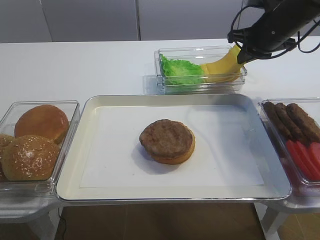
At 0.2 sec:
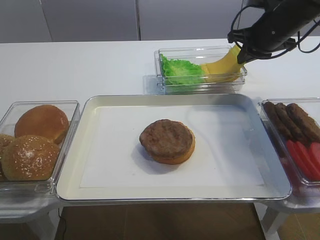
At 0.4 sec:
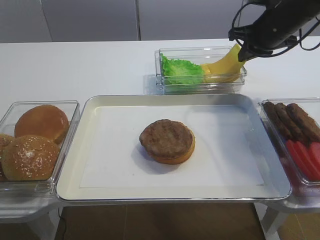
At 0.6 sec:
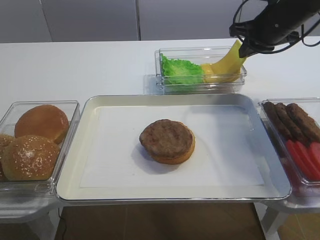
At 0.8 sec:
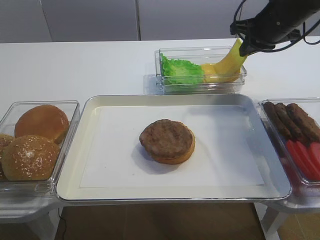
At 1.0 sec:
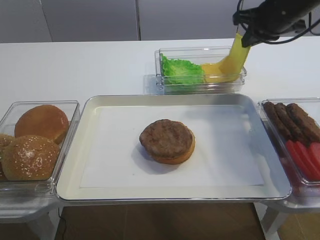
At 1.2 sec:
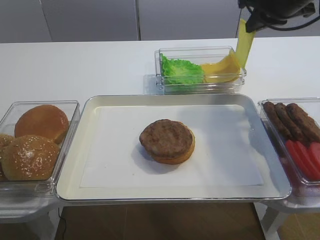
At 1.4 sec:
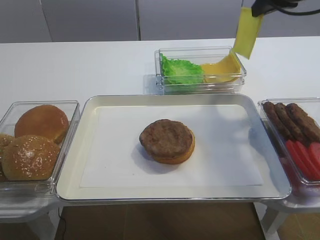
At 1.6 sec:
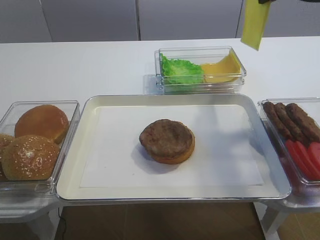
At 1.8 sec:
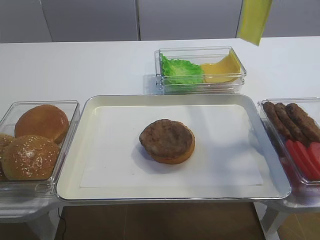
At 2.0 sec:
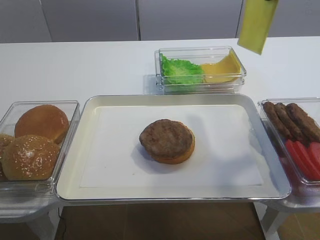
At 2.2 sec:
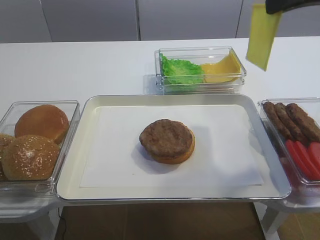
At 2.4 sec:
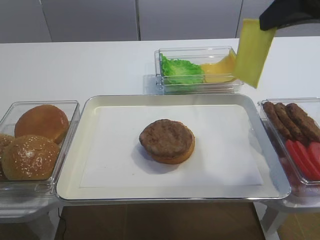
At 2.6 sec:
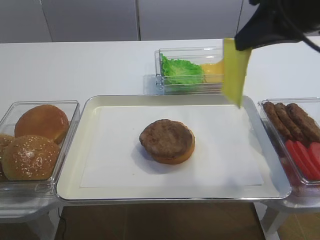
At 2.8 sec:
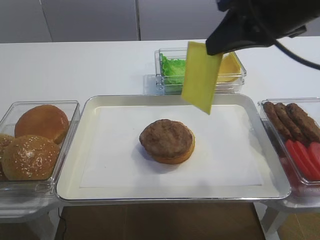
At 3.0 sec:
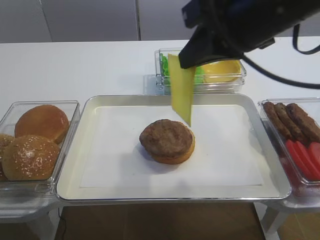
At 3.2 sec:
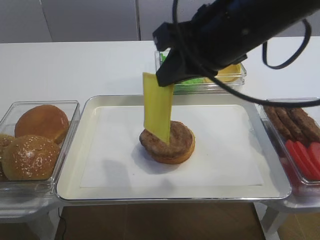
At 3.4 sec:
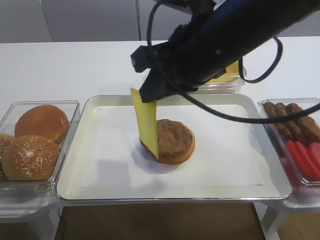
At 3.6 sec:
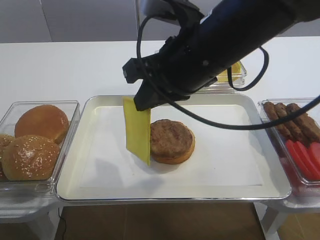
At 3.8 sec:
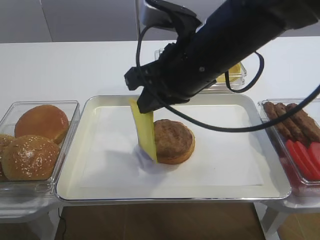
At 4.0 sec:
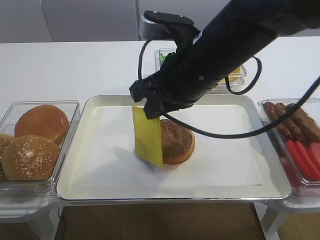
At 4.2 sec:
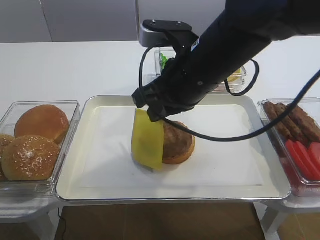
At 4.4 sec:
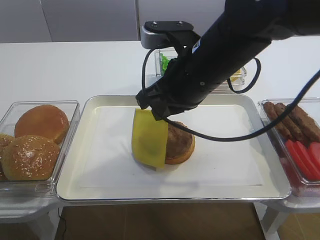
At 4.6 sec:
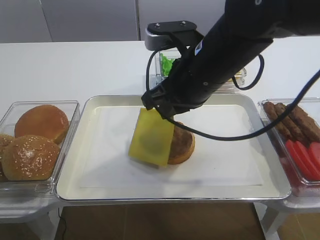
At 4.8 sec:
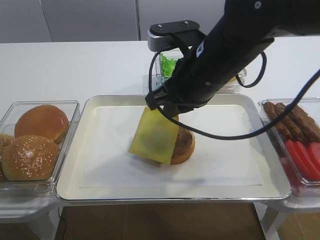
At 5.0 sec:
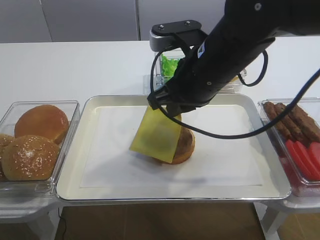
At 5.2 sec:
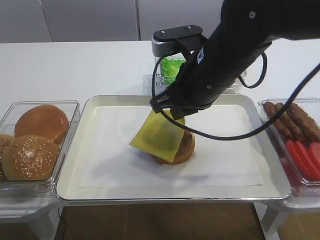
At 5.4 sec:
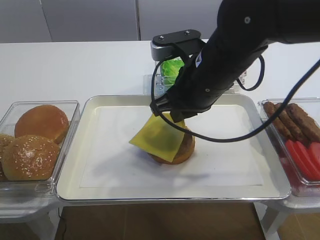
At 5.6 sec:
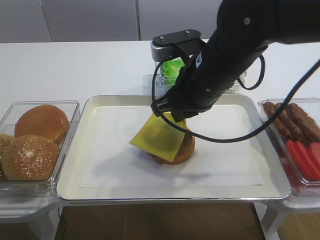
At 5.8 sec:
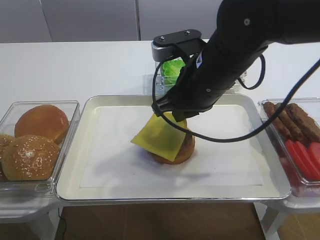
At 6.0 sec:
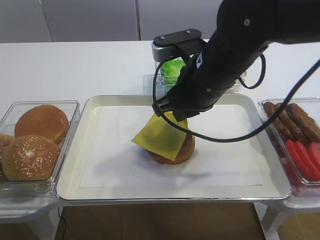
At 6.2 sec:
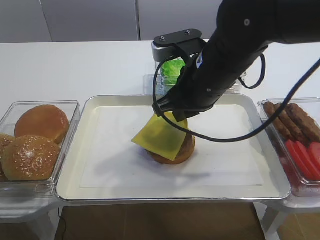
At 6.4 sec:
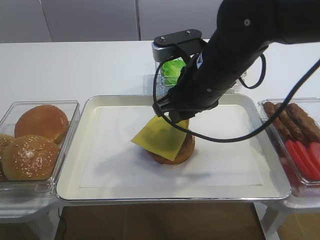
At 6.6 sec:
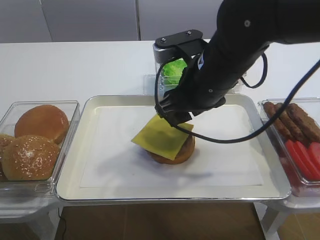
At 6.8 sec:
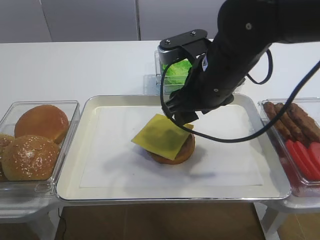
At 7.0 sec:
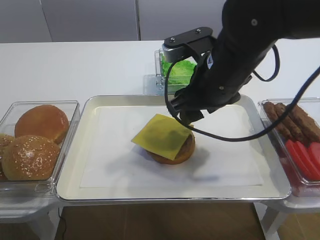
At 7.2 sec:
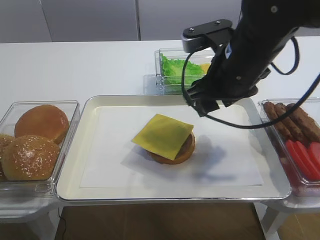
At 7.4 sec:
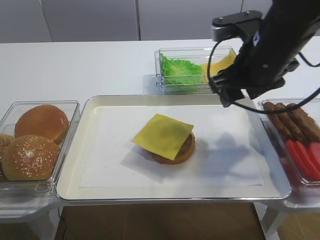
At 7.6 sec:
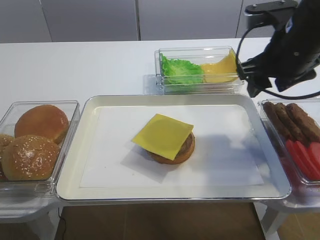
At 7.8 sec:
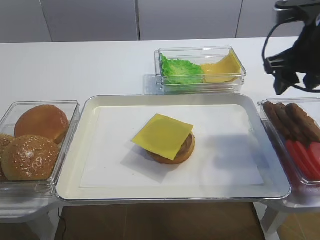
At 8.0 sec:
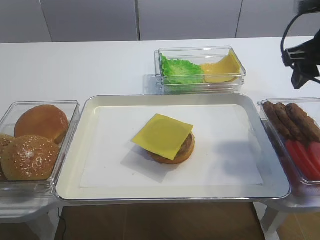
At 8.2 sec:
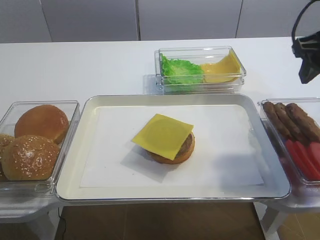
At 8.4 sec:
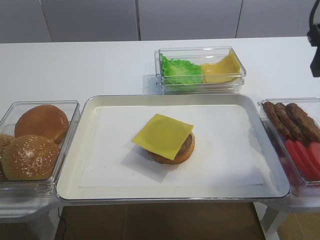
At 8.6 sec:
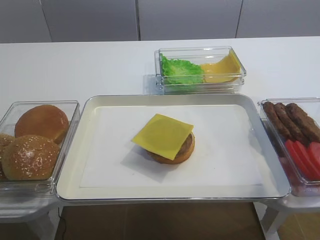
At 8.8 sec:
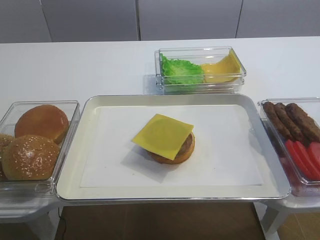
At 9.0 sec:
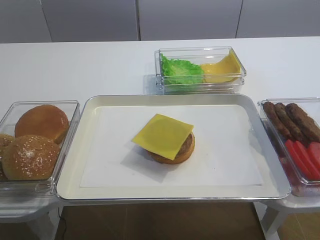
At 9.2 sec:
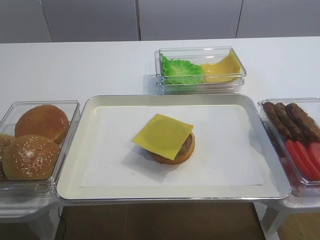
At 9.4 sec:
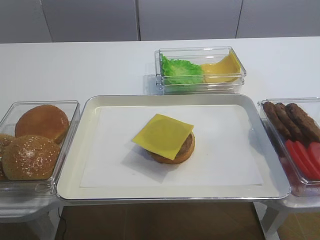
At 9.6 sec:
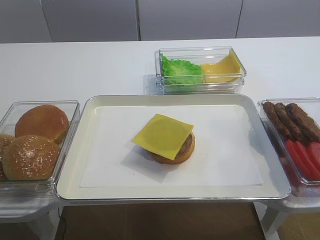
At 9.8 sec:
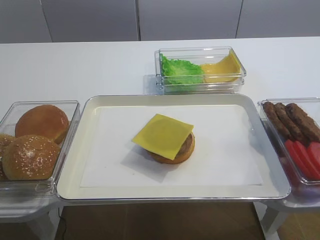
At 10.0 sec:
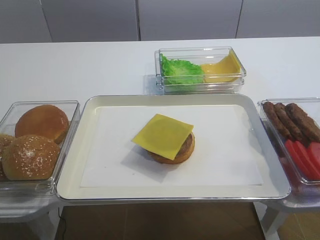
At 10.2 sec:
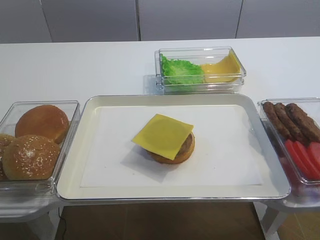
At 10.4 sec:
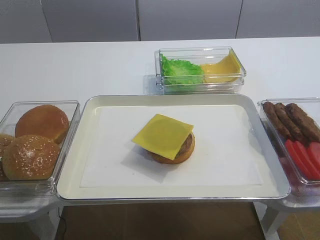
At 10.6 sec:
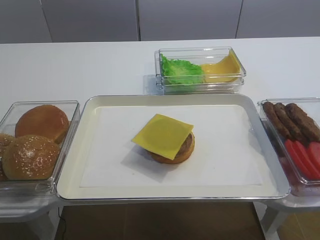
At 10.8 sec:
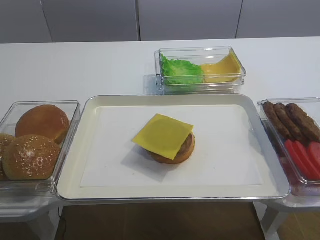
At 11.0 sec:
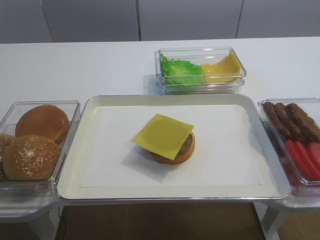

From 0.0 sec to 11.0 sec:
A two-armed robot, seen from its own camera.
Step, from 1.6 sec to 7.0 sec: Place the cheese slice on the cutlet with the right gripper.
From 0.0 sec to 1.6 sec: The right gripper goes approximately 15 cm upward and backward.
From 1.6 sec to 3.2 sec: The right gripper shifts about 15 cm backward and to the left.
From 3.2 sec to 4.8 sec: The right gripper is displaced downward by approximately 10 cm.
From 4.8 sec to 6.2 sec: The grippers make only small movements.
From 6.2 sec to 7.8 sec: The right gripper goes approximately 15 cm to the right, and opens up.
From 7.8 sec to 9.4 sec: The right gripper is displaced backward and upward by about 25 cm.

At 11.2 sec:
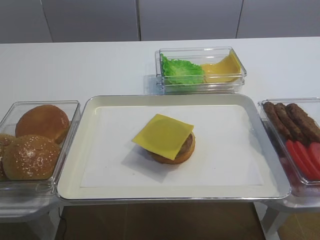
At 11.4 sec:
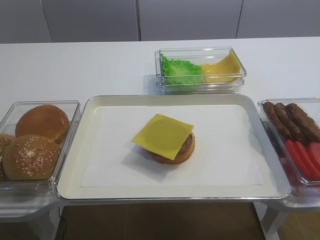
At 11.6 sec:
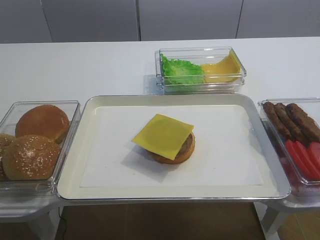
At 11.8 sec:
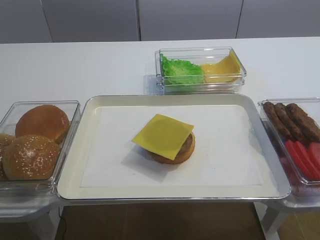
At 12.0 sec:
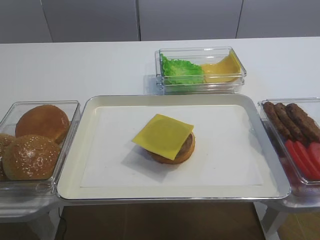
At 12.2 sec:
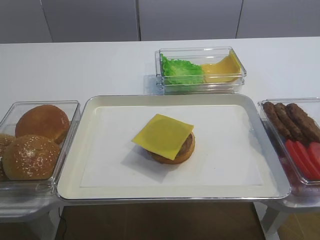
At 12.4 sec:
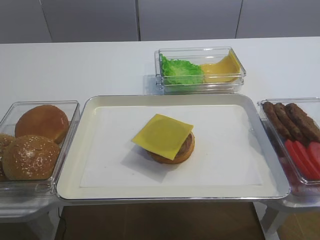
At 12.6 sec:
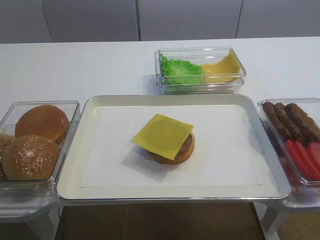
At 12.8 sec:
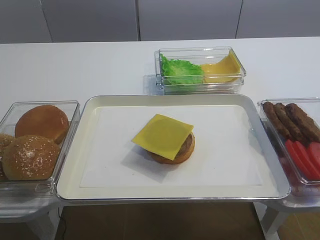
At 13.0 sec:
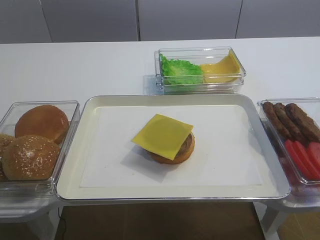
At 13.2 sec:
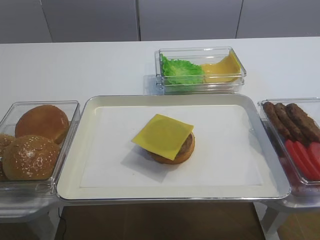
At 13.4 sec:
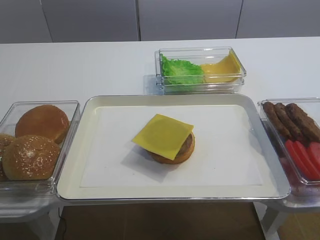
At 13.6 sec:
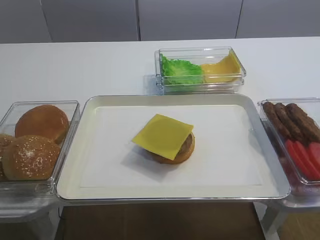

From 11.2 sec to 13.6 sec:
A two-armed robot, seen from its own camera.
From 12.4 sec to 13.6 sec: Both grippers stay put.

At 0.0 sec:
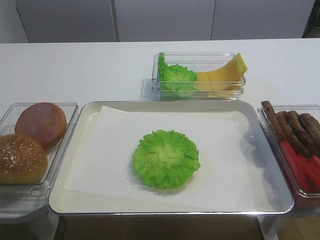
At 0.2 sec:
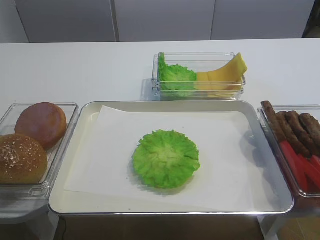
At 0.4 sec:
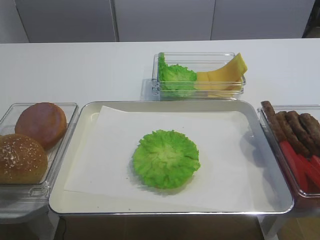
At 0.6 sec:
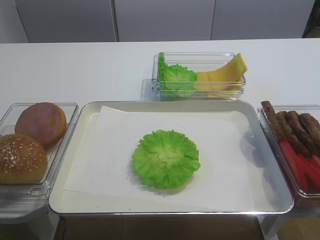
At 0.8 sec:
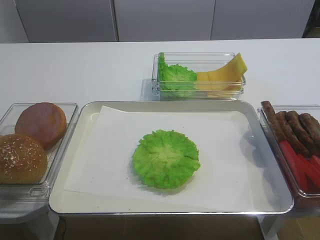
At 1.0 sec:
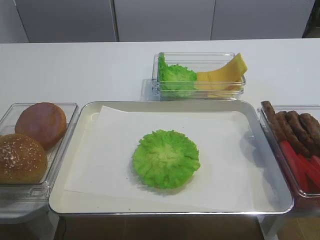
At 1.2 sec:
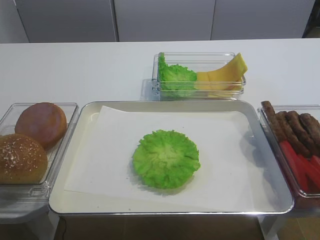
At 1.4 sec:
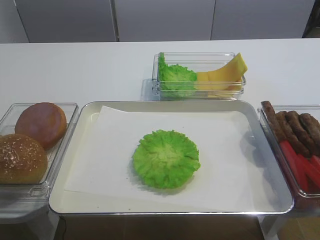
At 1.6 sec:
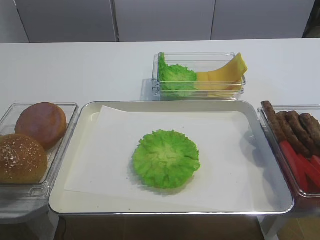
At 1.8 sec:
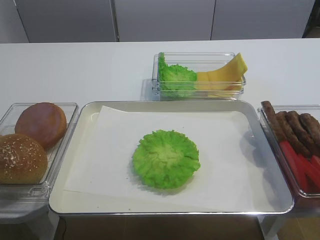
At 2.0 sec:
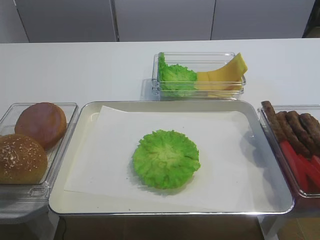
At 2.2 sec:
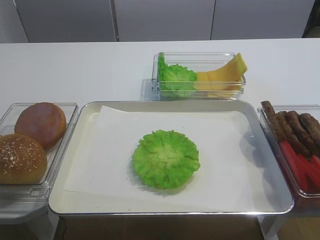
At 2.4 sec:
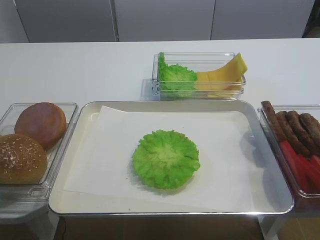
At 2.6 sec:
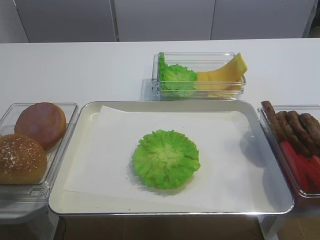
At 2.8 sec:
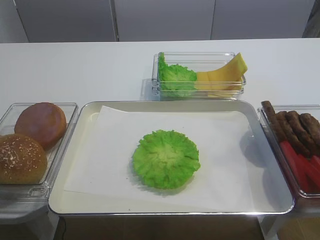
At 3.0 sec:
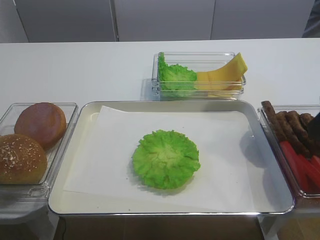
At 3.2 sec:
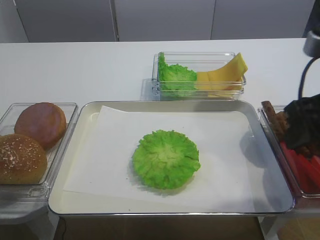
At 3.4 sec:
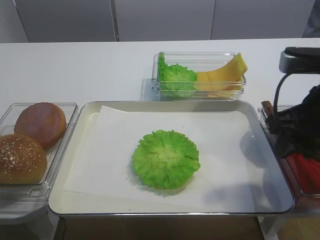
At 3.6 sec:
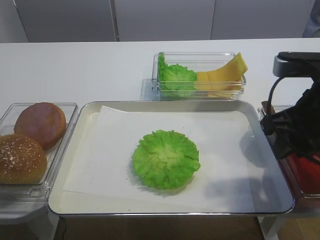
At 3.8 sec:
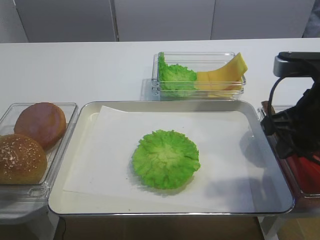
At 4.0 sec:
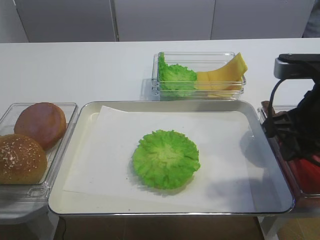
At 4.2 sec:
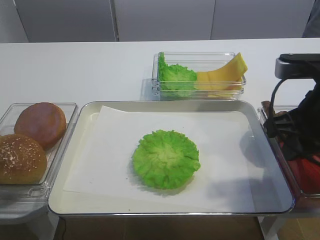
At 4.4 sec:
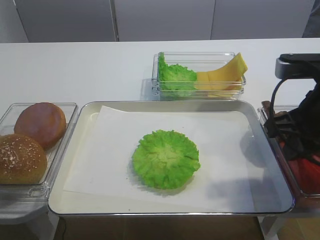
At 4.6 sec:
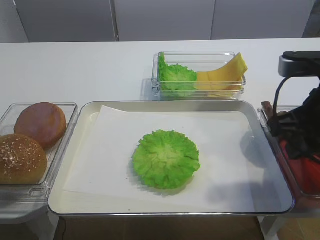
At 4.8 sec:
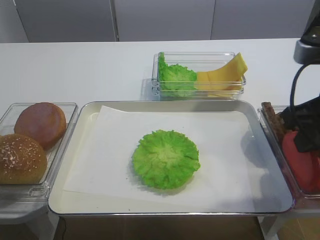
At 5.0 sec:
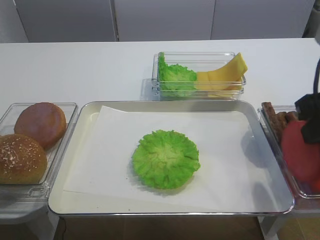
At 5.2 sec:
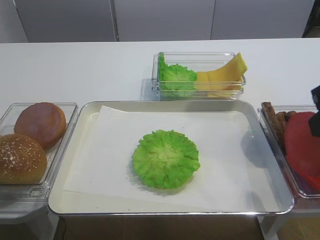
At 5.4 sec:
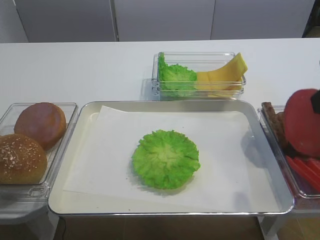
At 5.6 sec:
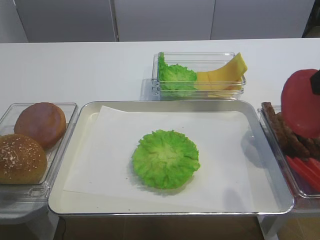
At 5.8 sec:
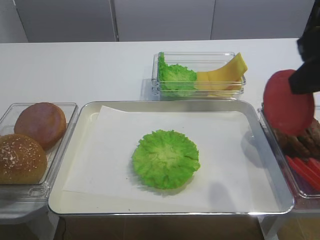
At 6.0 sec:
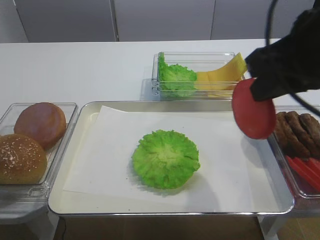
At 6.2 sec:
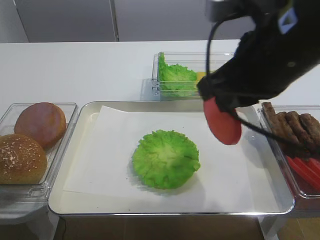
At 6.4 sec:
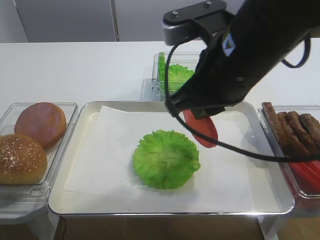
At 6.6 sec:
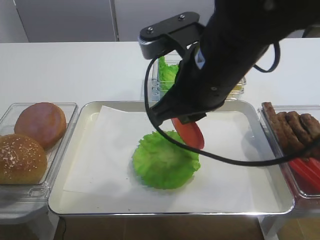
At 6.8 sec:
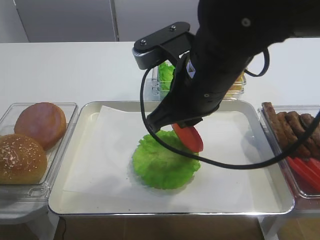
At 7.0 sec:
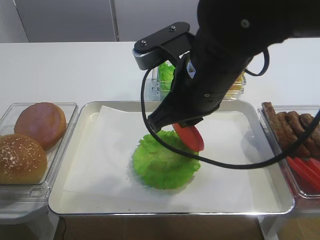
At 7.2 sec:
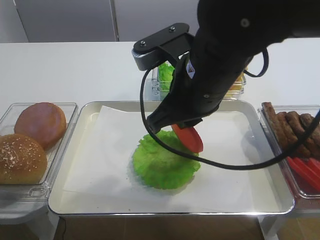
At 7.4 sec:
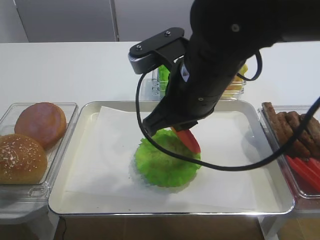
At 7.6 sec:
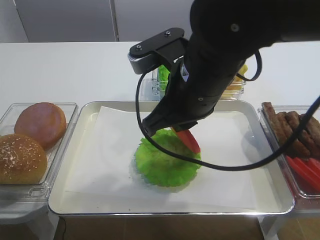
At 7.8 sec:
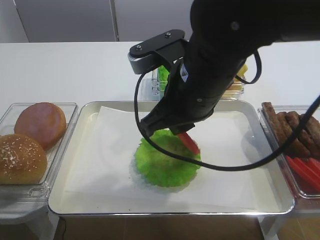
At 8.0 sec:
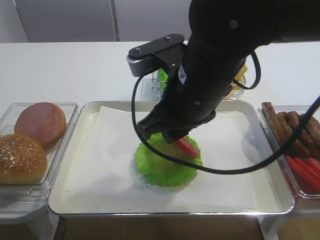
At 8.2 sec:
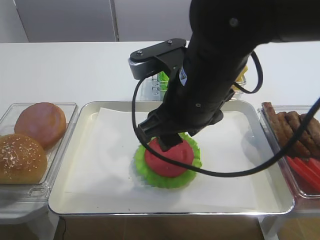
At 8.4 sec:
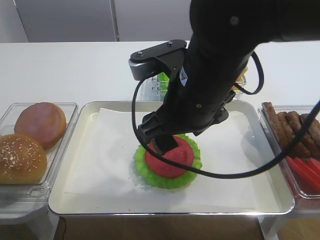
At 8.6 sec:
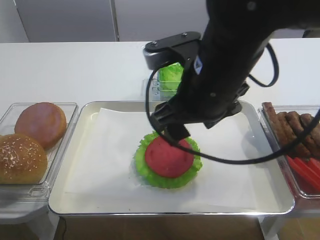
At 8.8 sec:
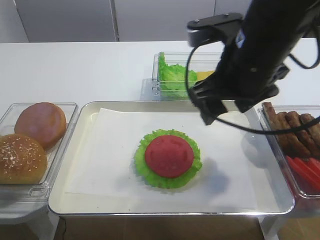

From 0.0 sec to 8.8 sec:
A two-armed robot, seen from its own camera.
Step, from 0.0 sec to 5.0 sec: Pick up the tomato slice with the right gripper.
Step, from 5.2 sec to 8.4 sec: Place the tomato slice on the lettuce leaf with the right gripper.
From 1.4 sec to 3.0 sec: The right gripper goes roughly 15 cm forward.
From 3.0 sec to 4.4 sec: The right gripper travels downward by approximately 5 cm, and closes its fingers.
From 4.4 sec to 5.8 sec: The right gripper travels upward by approximately 10 cm.
From 5.8 sec to 7.4 sec: The right gripper heads to the left, downward and forward, covering about 20 cm.
From 7.4 sec to 8.8 sec: The right gripper shifts approximately 5 cm to the right, and opens up.
